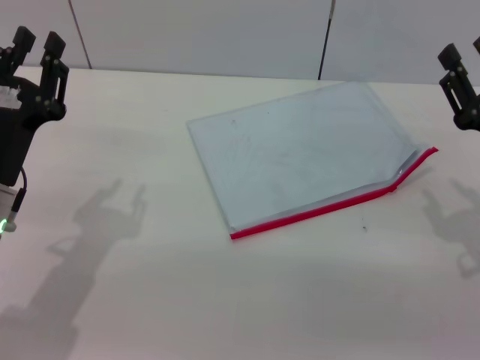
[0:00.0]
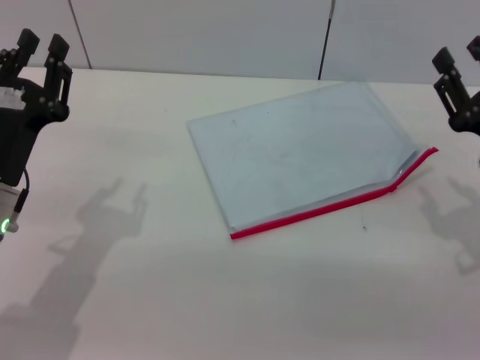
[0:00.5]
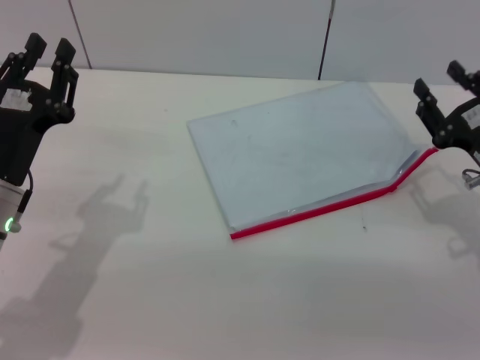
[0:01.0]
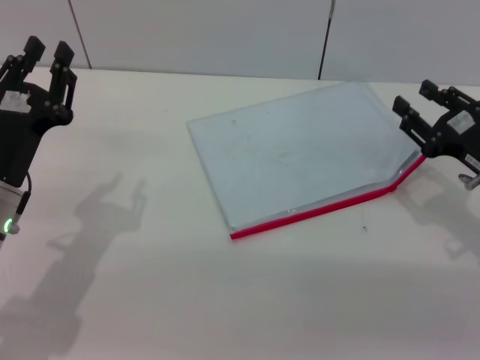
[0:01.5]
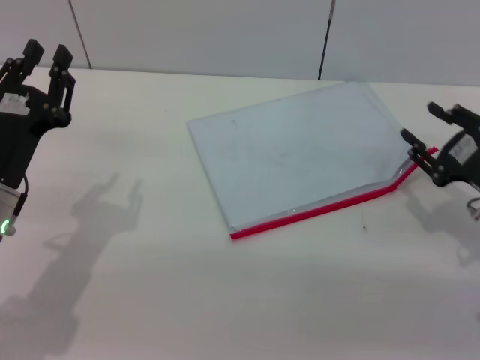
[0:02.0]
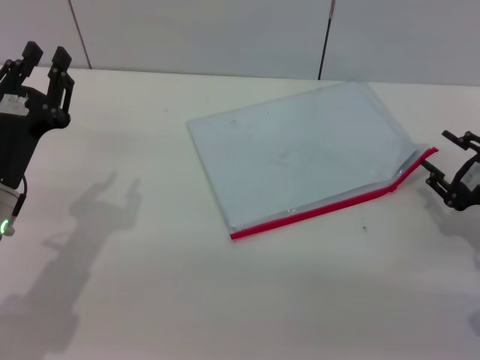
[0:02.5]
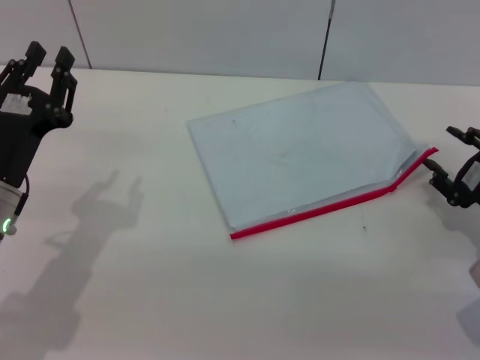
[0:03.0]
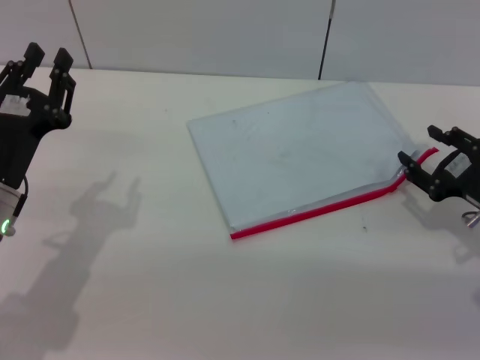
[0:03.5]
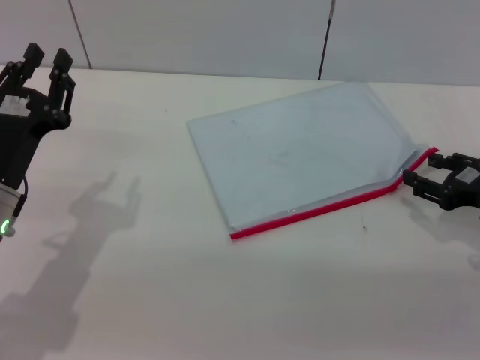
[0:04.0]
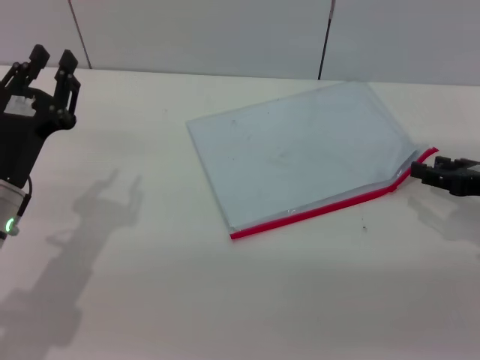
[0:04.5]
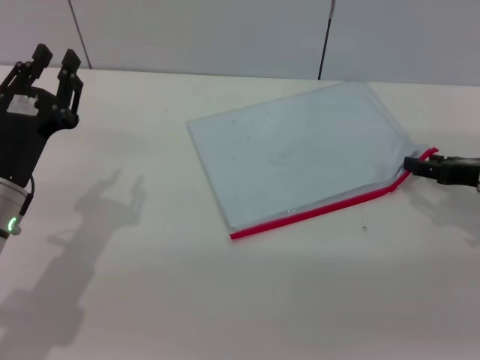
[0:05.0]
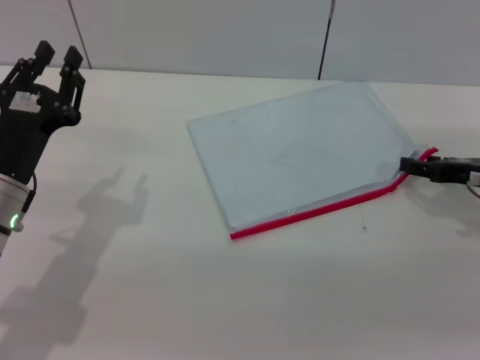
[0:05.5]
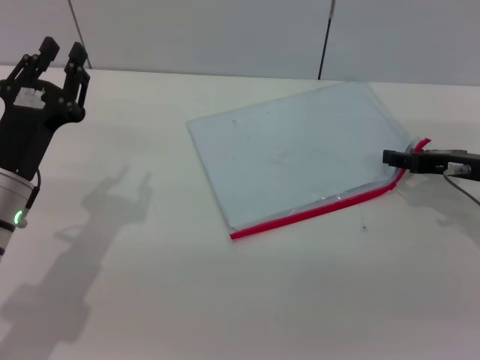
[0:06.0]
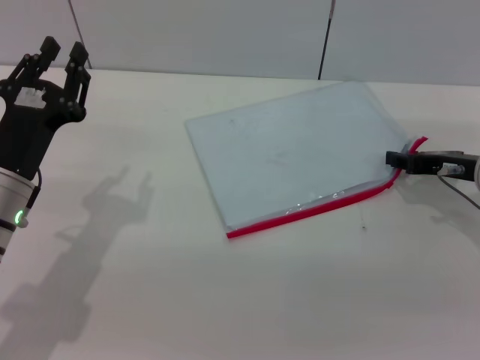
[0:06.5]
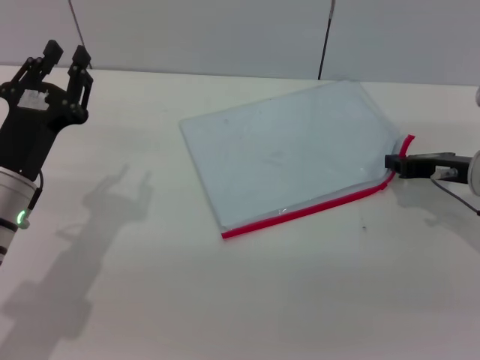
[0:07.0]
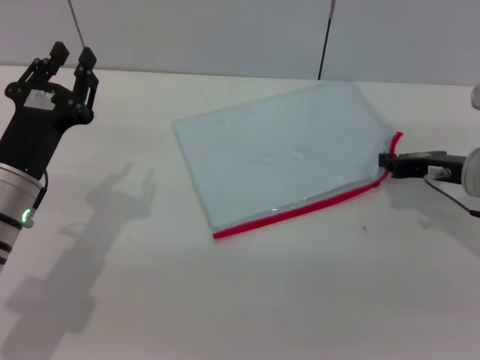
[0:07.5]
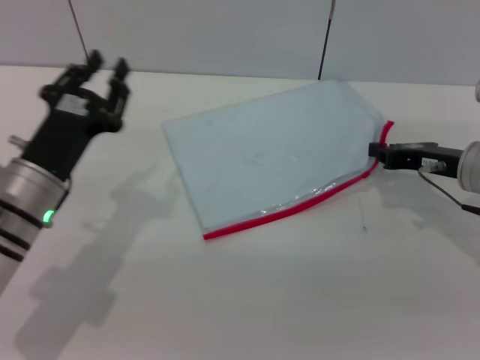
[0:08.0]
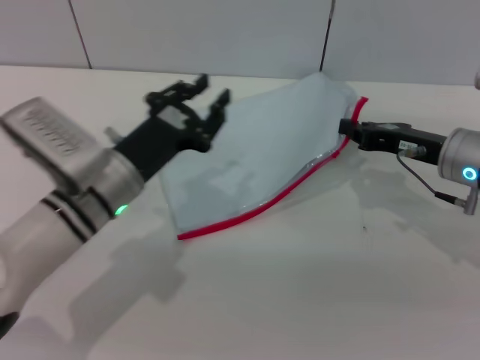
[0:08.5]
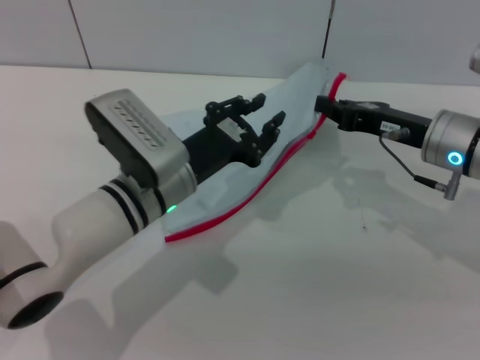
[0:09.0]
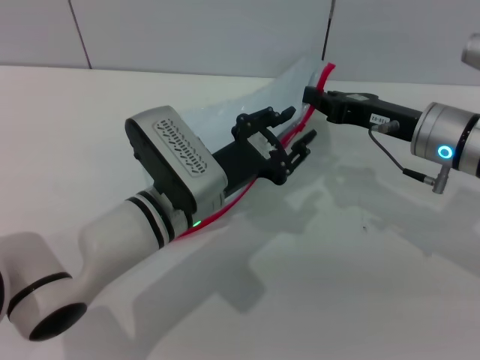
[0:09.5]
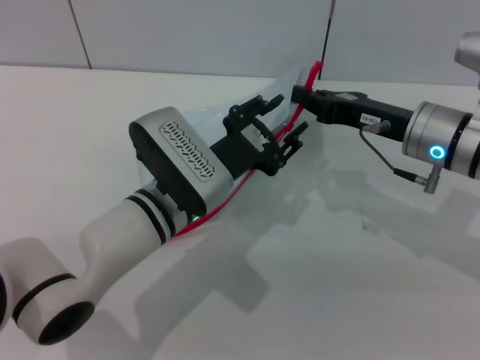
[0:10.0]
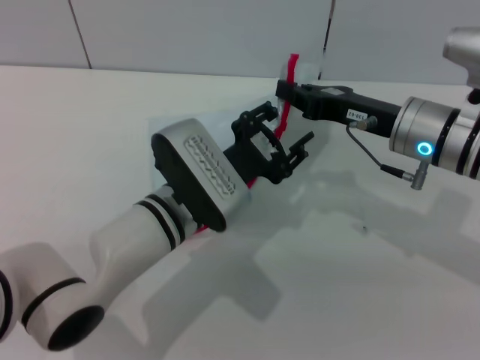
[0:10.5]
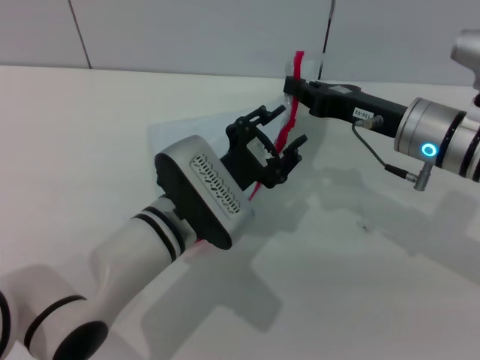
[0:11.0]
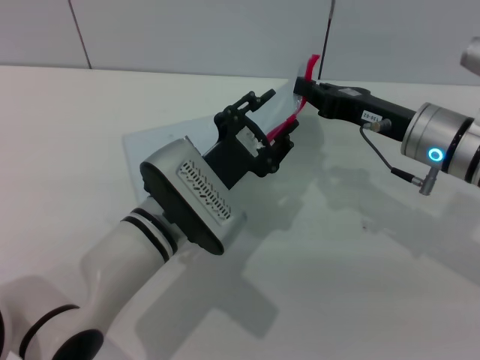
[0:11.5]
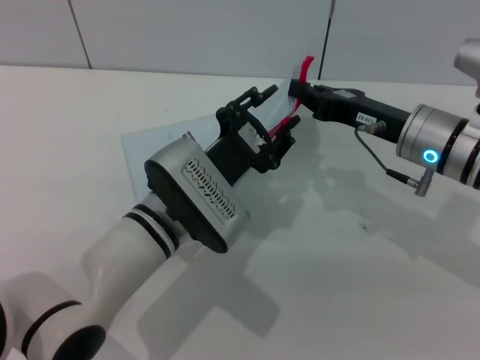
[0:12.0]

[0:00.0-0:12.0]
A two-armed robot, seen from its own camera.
Step, 0:00.0 to 0:08.5: Pick up the transparent plastic bag with the right gripper.
0:04.0 to 0:06.0: The right gripper shifts about 5 cm forward.
0:06.0 to 0:08.0: The right gripper closes up.
0:08.0 to 0:10.0: The right gripper shifts about 5 cm to the left. Meanwhile the left gripper travels to the right by some 15 cm.
0:10.0 to 0:12.0: The grippers stay close to where they were, moving slightly.

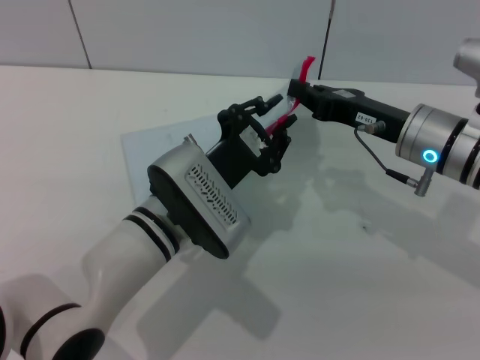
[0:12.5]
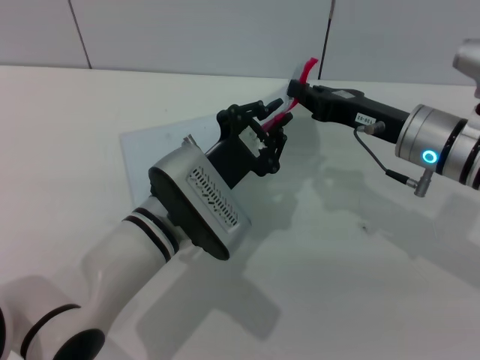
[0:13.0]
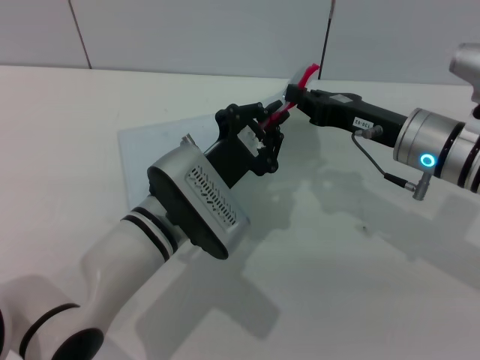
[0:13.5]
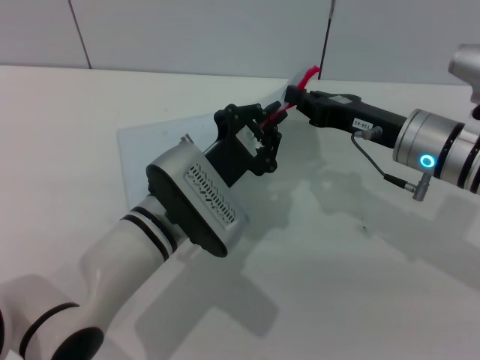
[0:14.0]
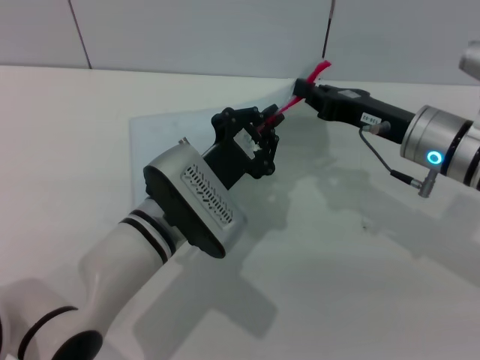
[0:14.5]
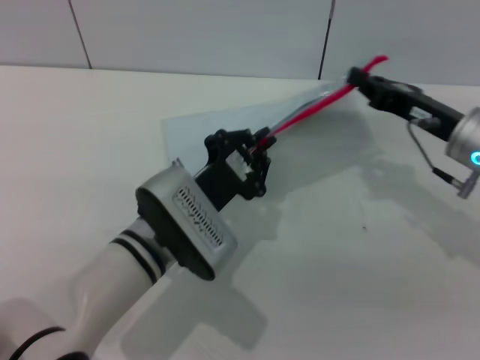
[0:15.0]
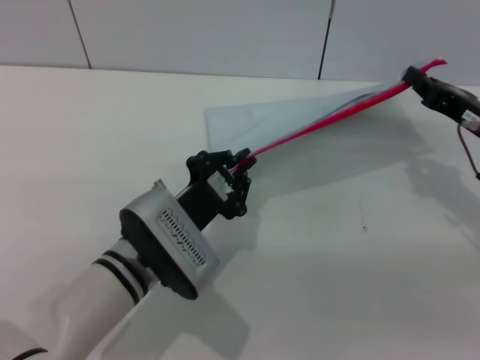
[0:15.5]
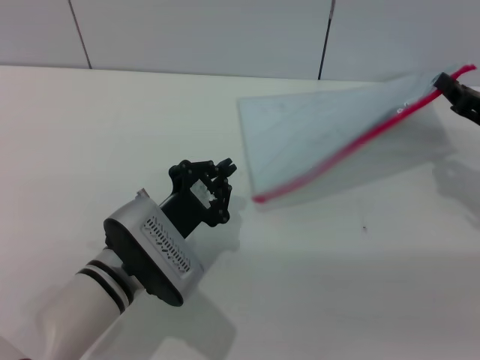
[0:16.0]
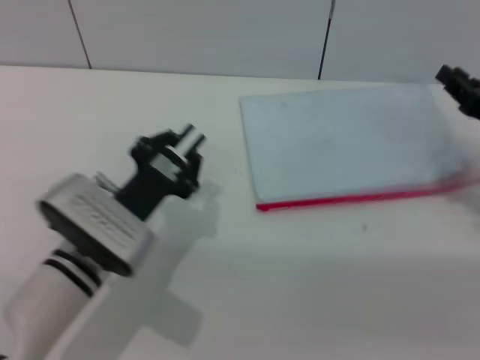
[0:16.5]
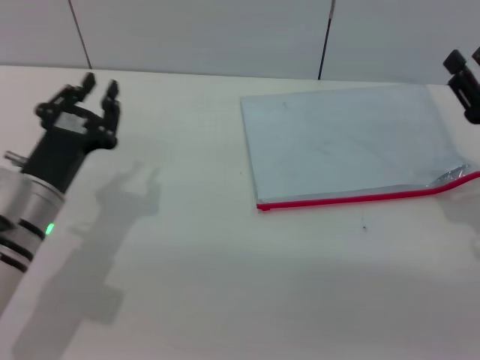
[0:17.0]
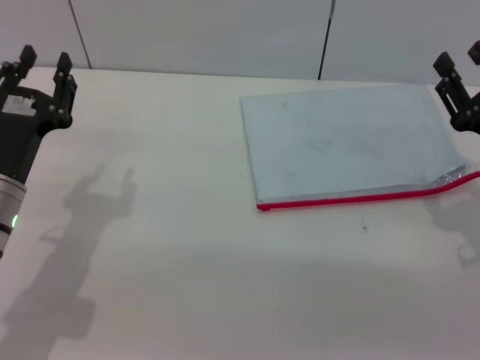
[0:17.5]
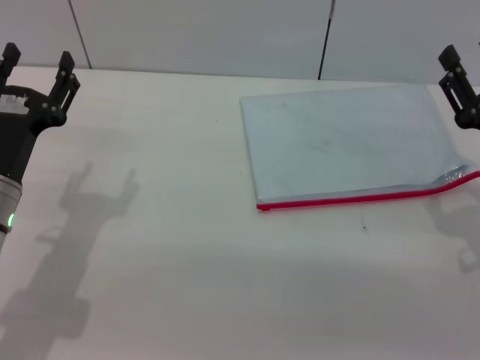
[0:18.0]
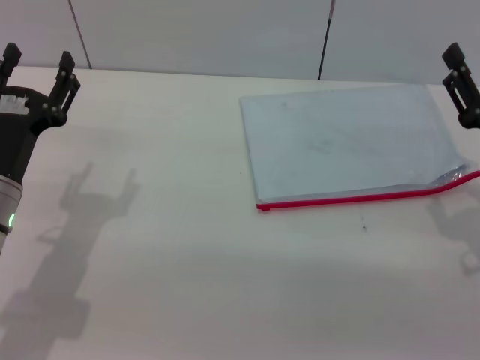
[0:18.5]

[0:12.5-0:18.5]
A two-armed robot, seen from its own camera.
Step, 0:12.5 to 0:16.0: Pulling up the zipper on the transparent plastic bag with the left gripper to close it.
Step, 0:16.5 to 0:17.0: Place the transparent plastic bag.
0:12.5 to 0:14.5: The left gripper closes.
0:14.5 to 0:16.5: The right gripper travels to the right by about 10 cm; the left gripper is displaced to the left by roughly 5 cm.
0:16.5 to 0:18.5: The left gripper heads to the left, covering about 10 cm, and opens up. Meanwhile the right gripper shifts roughly 5 cm backward, and opens up.

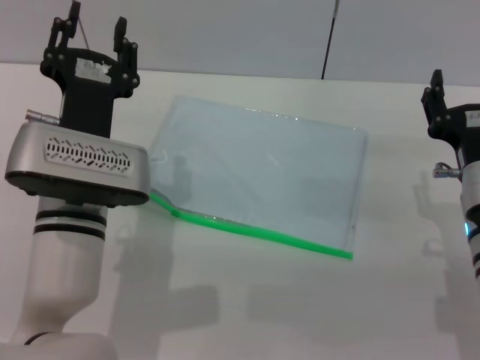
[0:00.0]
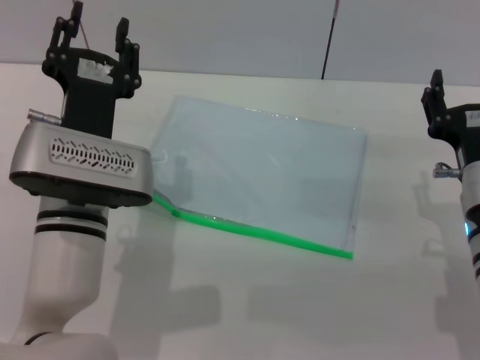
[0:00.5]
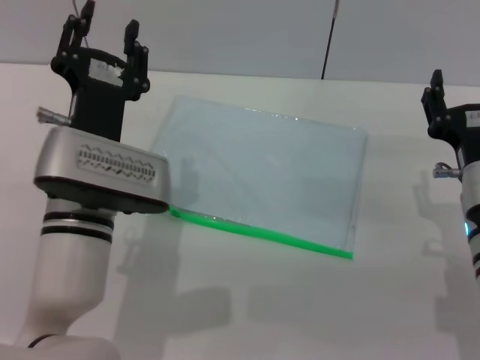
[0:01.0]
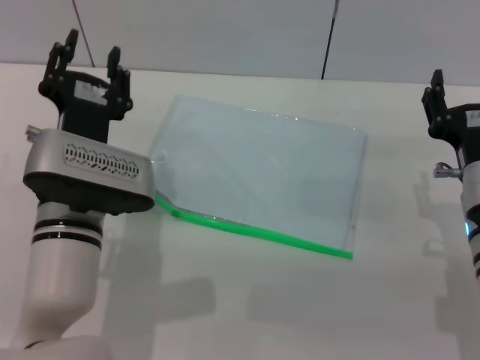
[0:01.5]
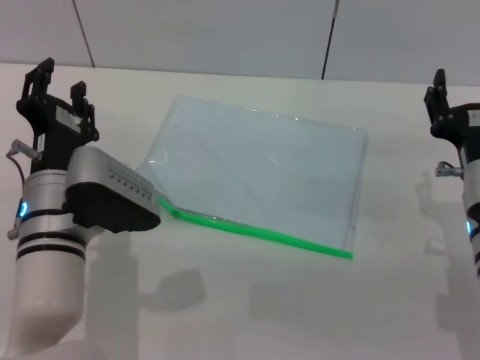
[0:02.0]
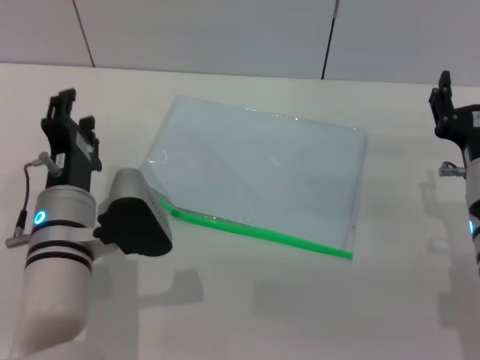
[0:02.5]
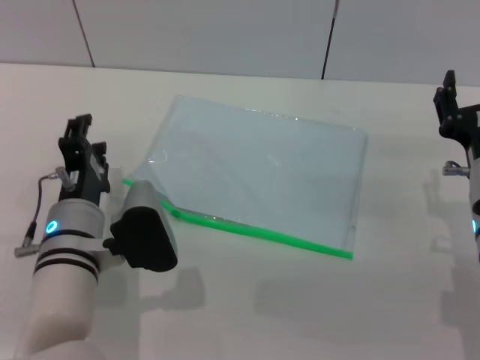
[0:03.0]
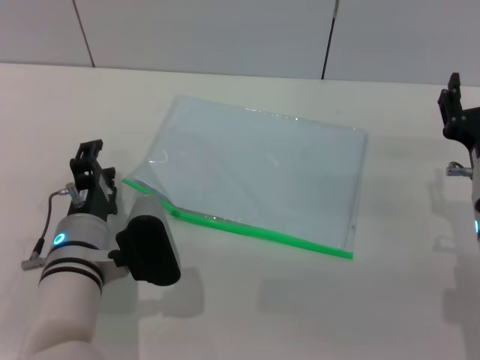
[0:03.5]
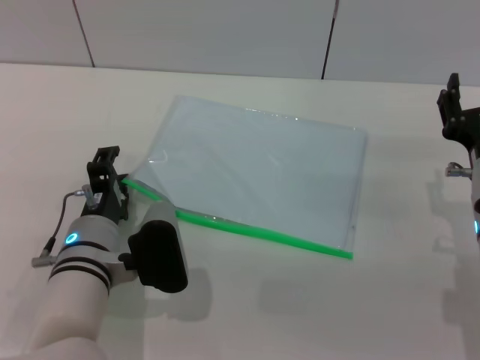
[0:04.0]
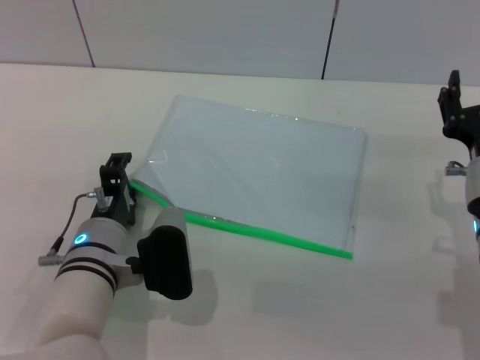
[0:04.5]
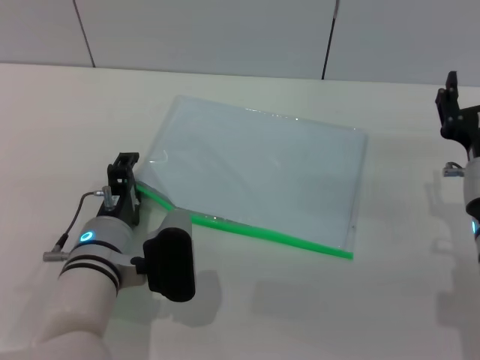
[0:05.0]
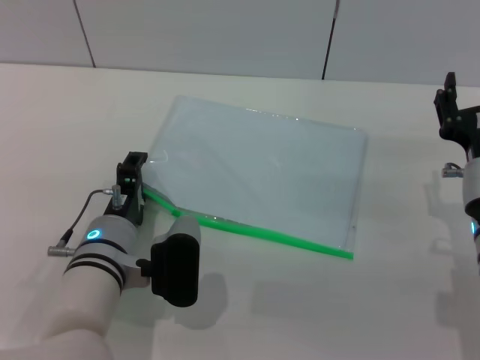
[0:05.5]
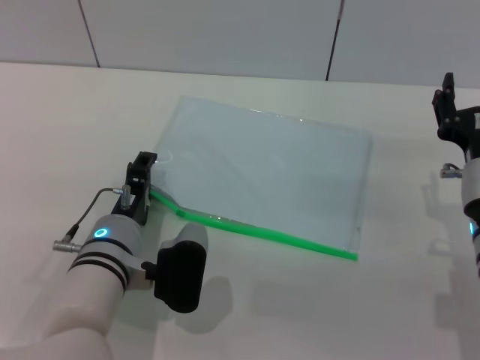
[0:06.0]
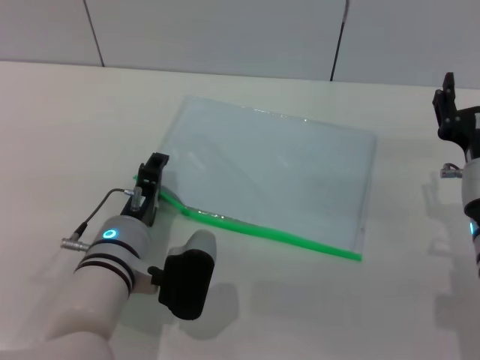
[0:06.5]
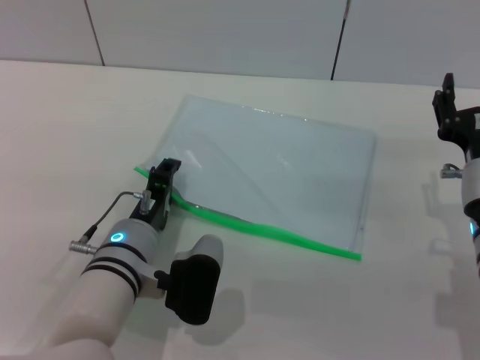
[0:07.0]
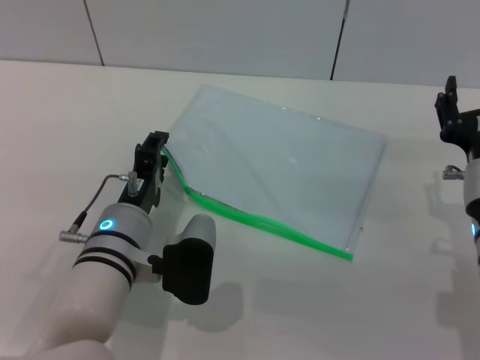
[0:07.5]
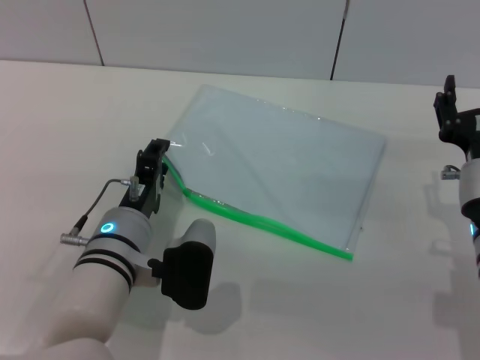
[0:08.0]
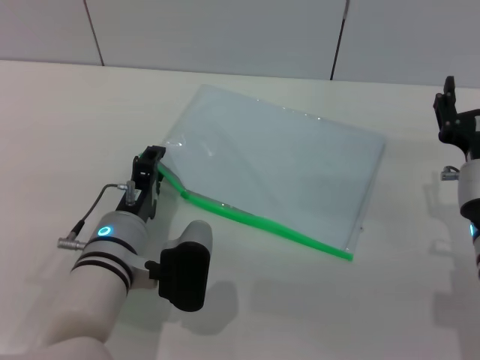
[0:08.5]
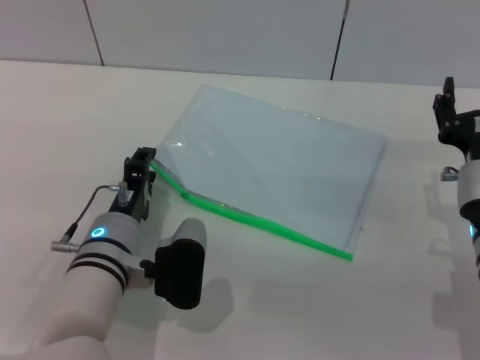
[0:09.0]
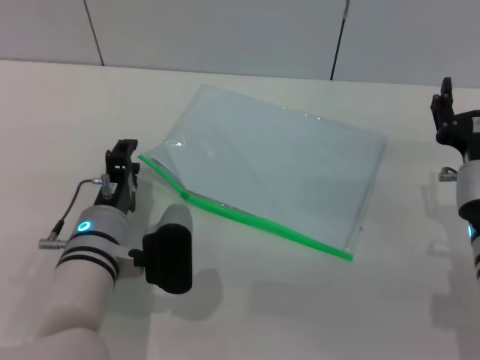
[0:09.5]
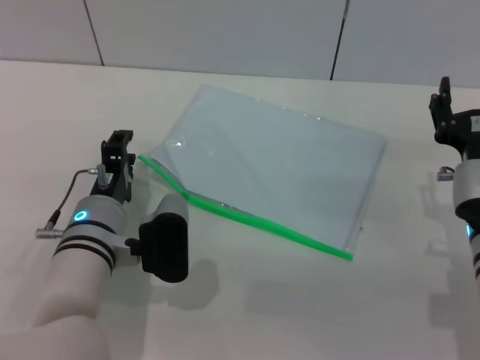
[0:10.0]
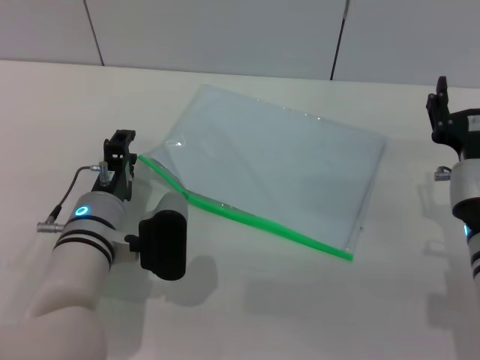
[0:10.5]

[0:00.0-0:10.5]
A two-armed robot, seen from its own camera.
0:06.5 to 0:10.5: There are only small adjustments of the grippers.
